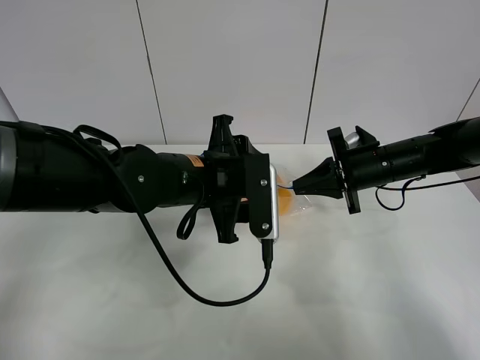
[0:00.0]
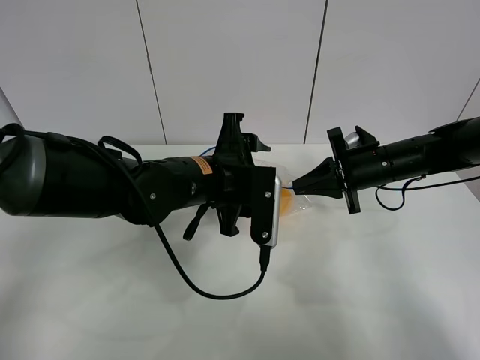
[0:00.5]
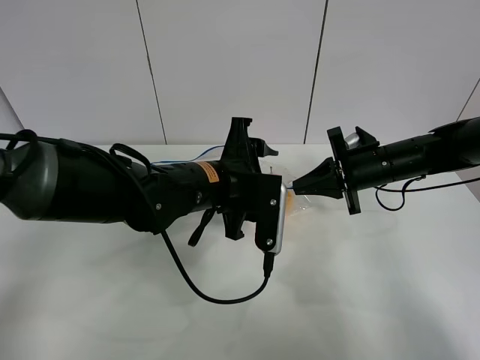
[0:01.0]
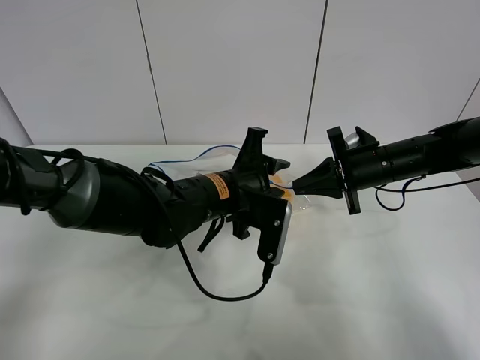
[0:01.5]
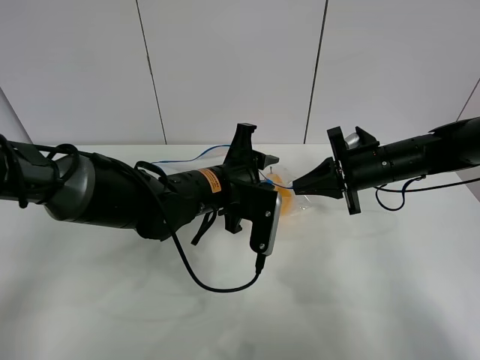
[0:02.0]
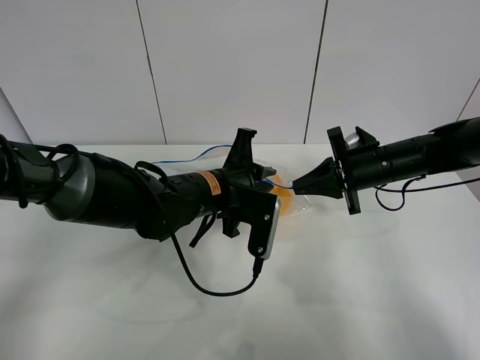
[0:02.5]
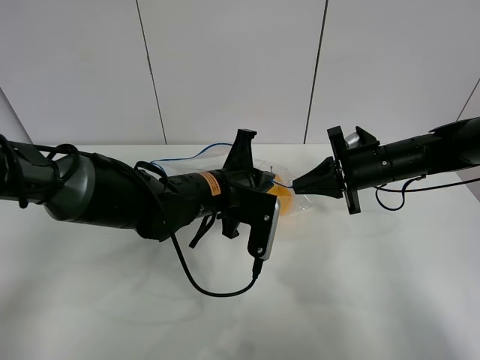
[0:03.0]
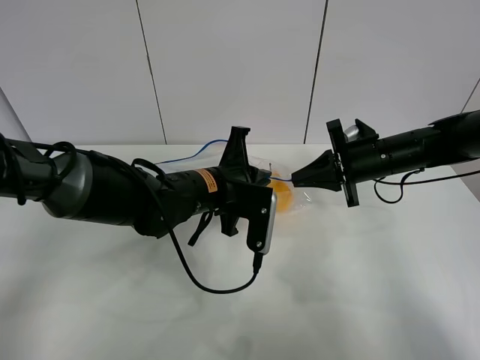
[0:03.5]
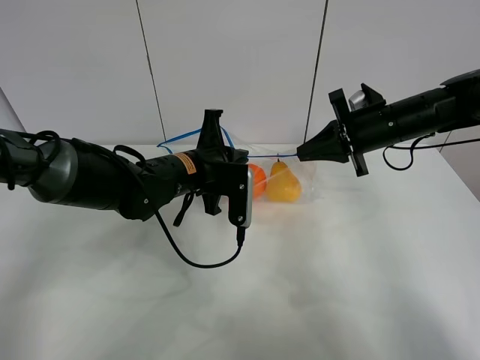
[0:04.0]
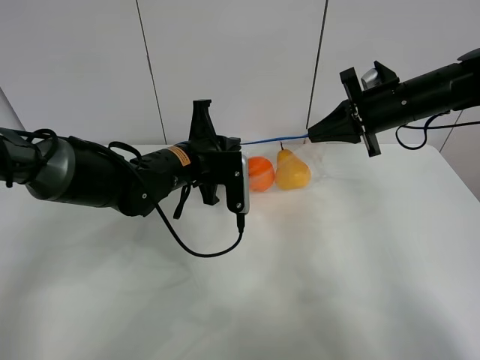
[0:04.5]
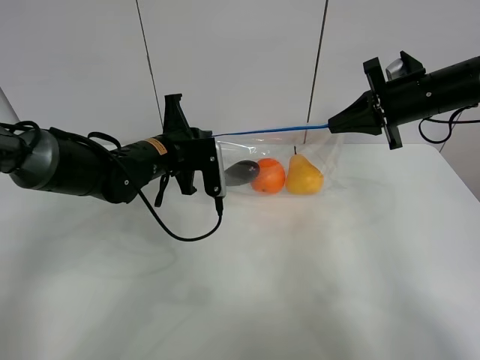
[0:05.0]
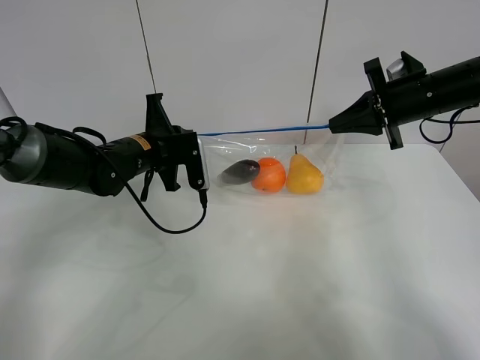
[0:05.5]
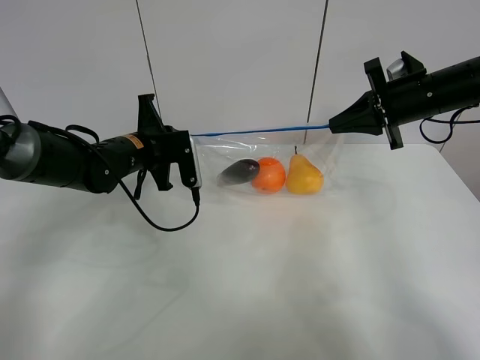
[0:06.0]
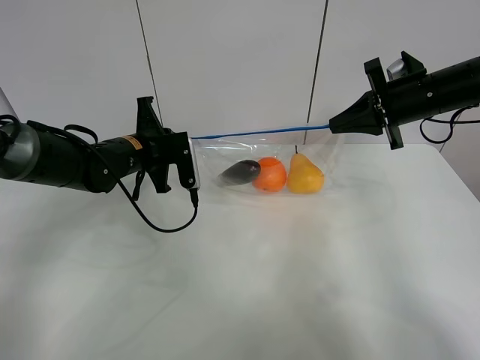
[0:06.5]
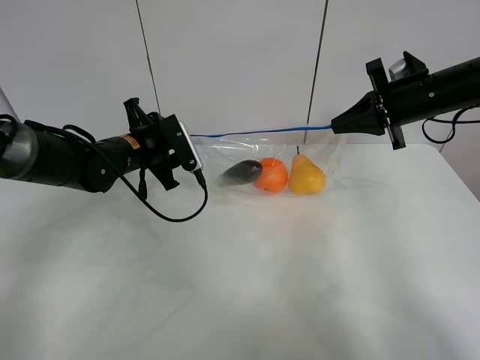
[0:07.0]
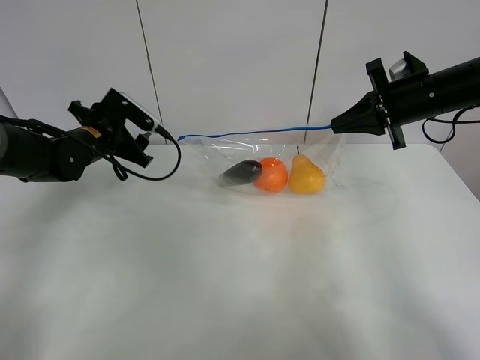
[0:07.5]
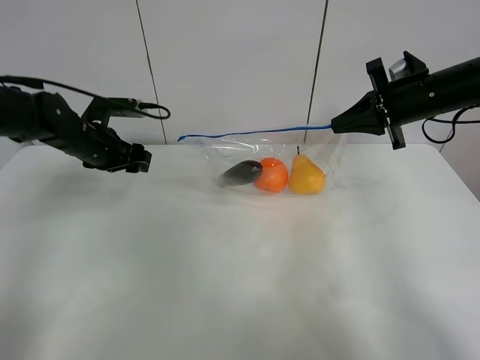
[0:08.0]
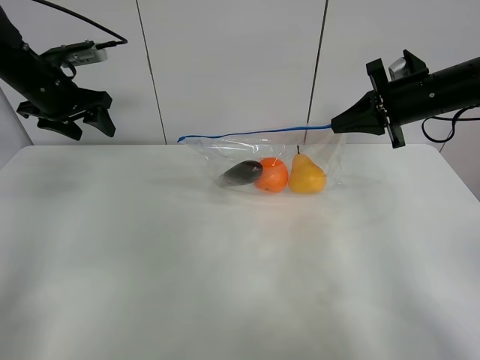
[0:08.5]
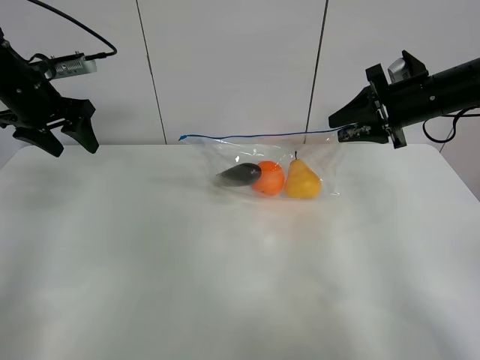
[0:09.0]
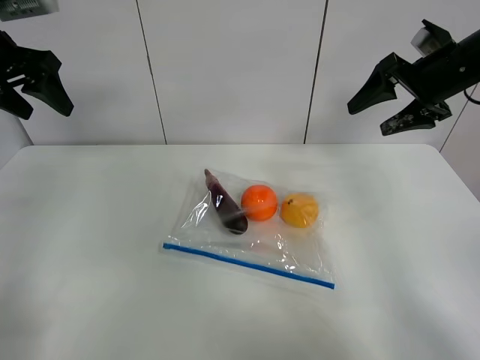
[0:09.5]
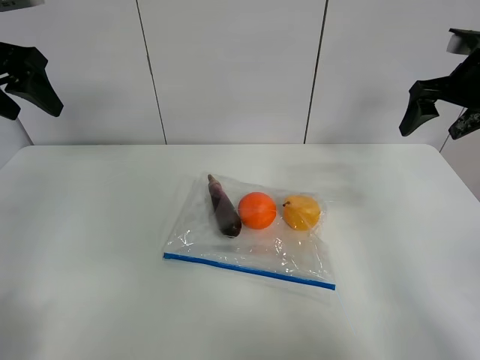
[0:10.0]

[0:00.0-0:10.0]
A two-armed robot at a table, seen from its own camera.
Step, 0:00.0 to 0:07.0: Pull the fruit bag with left gripper.
0:02.0 to 0:04.0: The right gripper is displaced upward by roughly 5 cm; the left gripper shifts by roughly 5 cm, and closes up.
0:04.0 to 0:06.0: The right gripper ends up about 5 cm from where it was, while the left gripper shifts about 10 cm to the left.
0:06.0 to 0:08.0: The left gripper shifts approximately 10 cm to the left, and opens its fingers.
0:08.0 to 0:10.0: The right gripper shifts approximately 10 cm upward and to the right, and opens up, while the left gripper goes some 20 cm upward and backward.

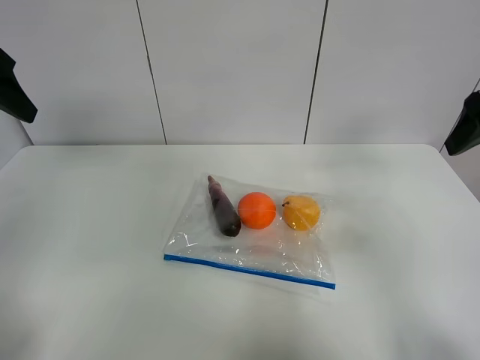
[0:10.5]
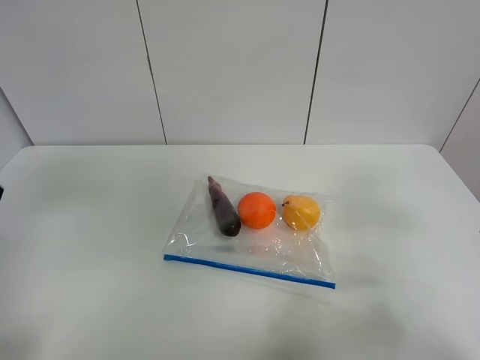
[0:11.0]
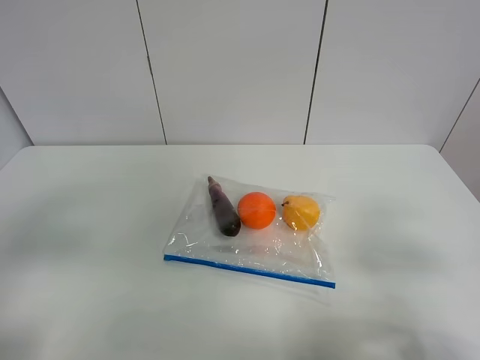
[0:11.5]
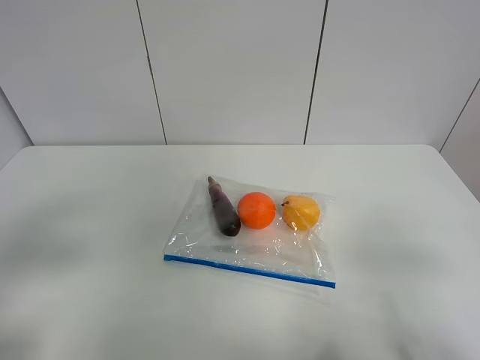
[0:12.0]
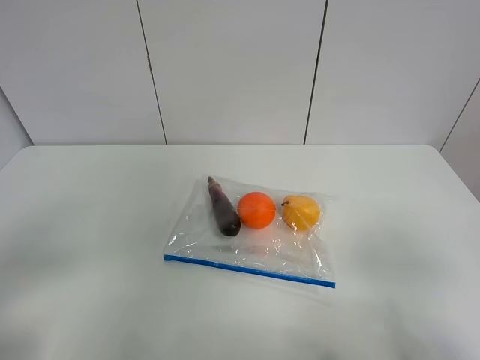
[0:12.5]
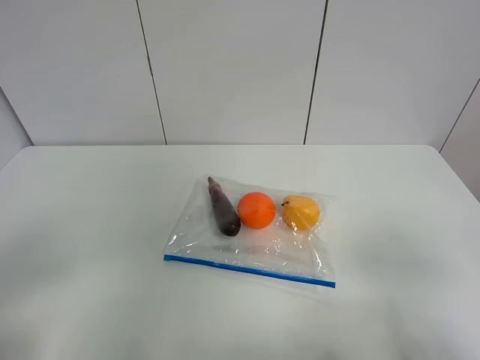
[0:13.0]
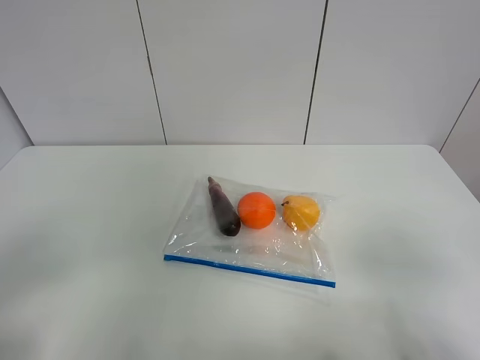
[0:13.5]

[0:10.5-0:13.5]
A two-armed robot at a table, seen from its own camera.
0:10.5 to 0:12.0: The right gripper is displaced backward by approximately 25 cm. The left gripper moves backward and downward, about 25 cm.

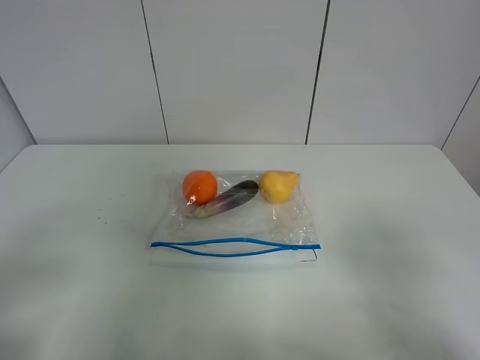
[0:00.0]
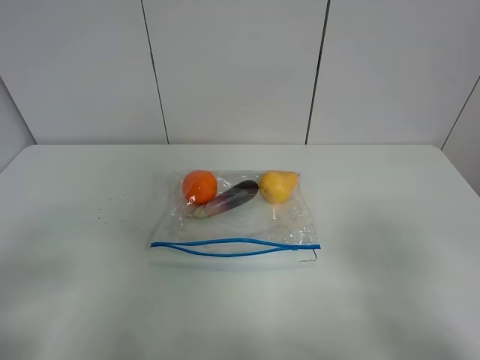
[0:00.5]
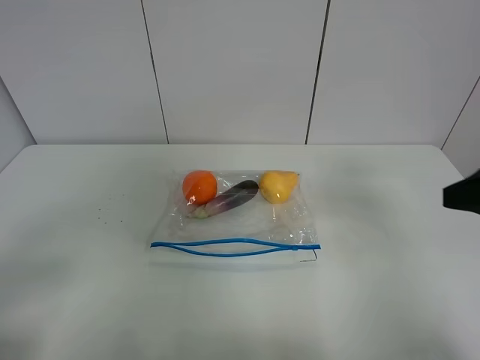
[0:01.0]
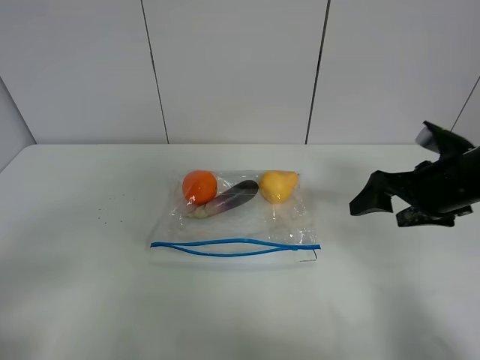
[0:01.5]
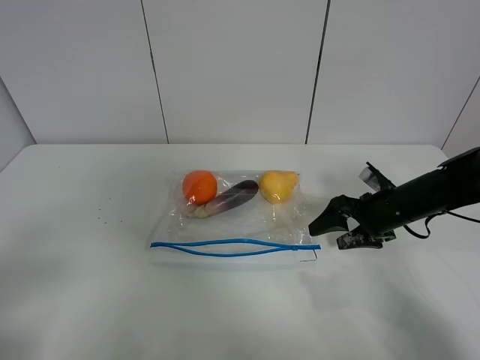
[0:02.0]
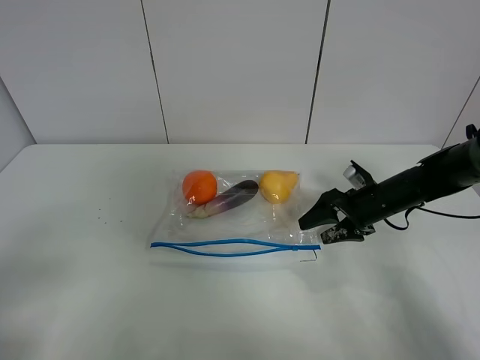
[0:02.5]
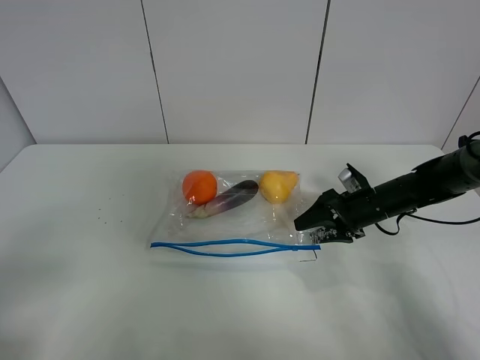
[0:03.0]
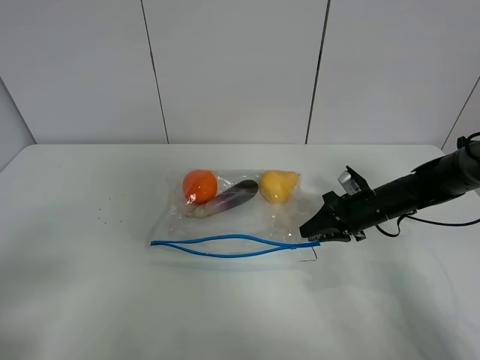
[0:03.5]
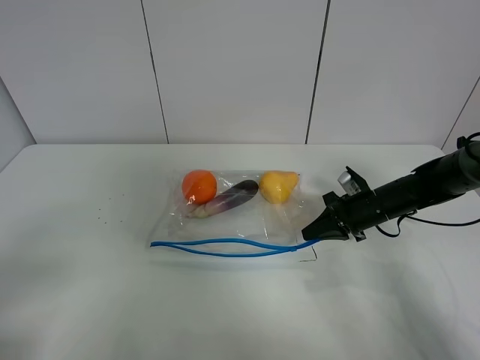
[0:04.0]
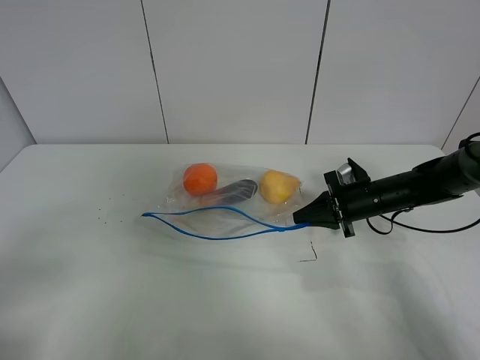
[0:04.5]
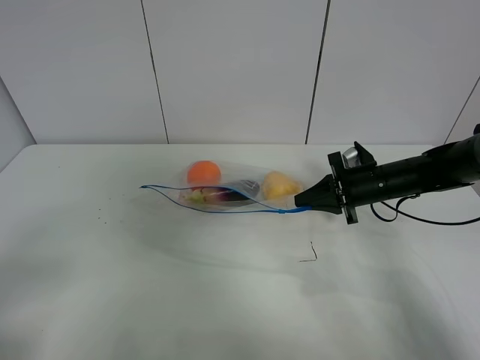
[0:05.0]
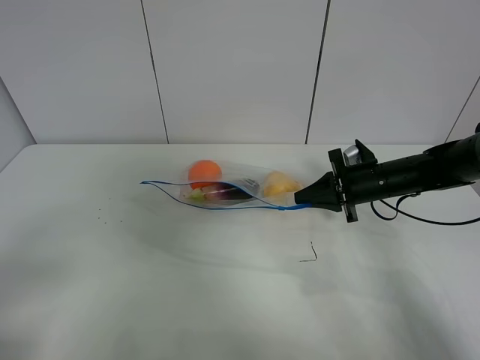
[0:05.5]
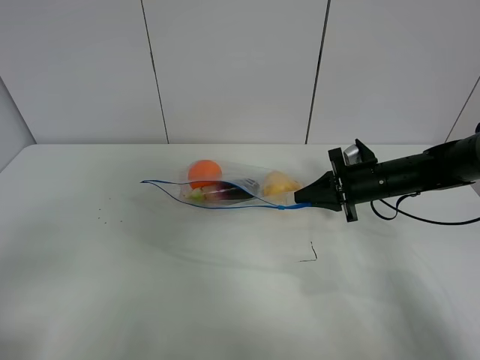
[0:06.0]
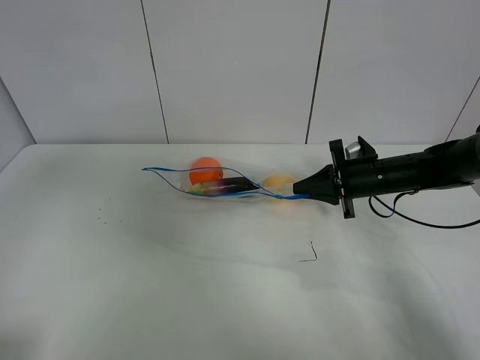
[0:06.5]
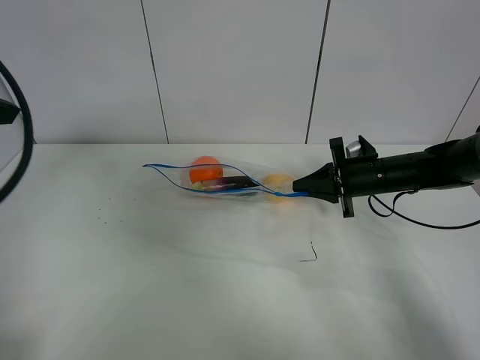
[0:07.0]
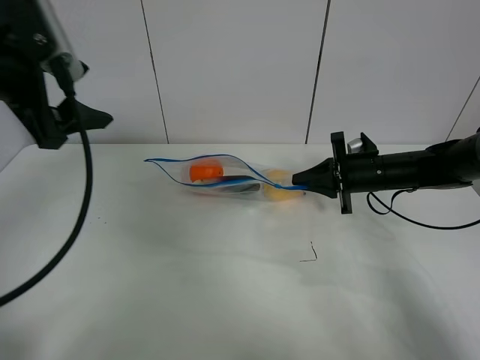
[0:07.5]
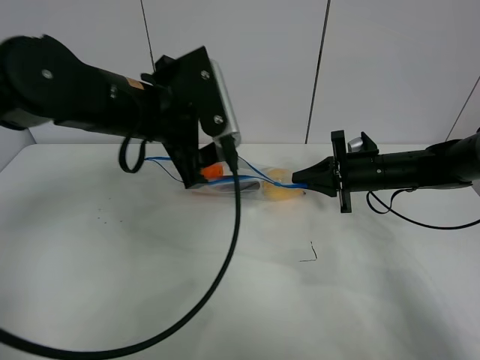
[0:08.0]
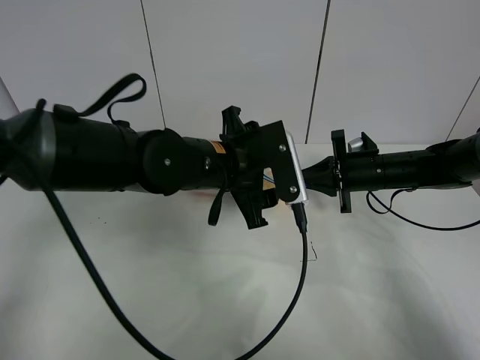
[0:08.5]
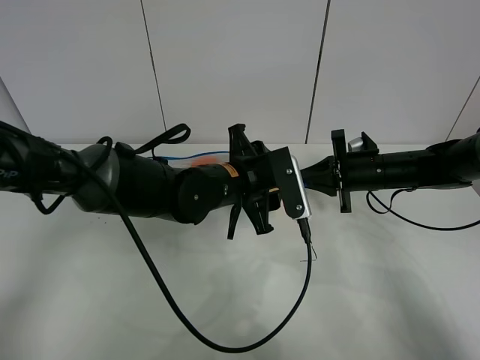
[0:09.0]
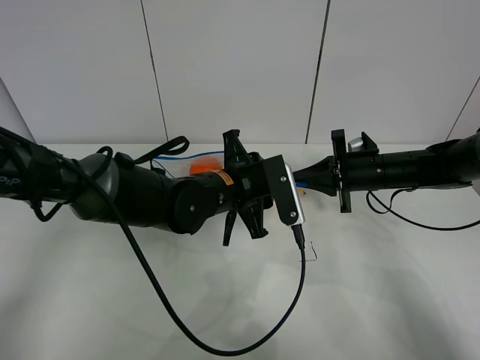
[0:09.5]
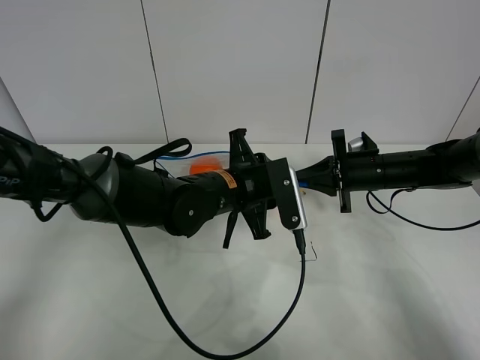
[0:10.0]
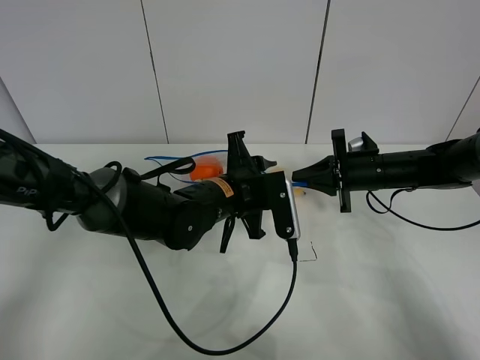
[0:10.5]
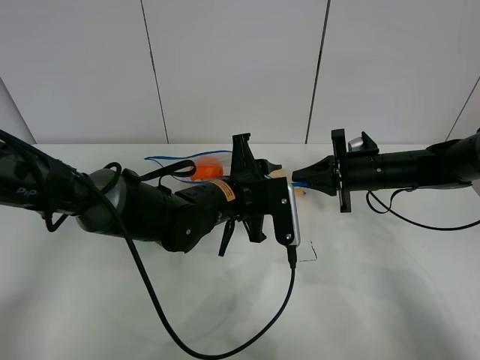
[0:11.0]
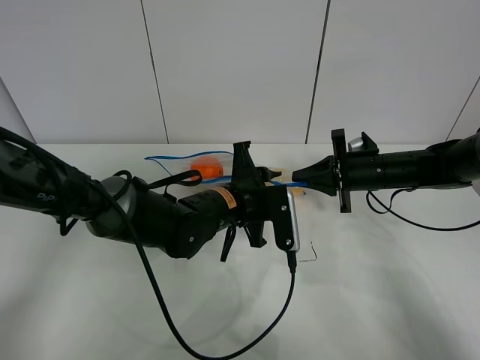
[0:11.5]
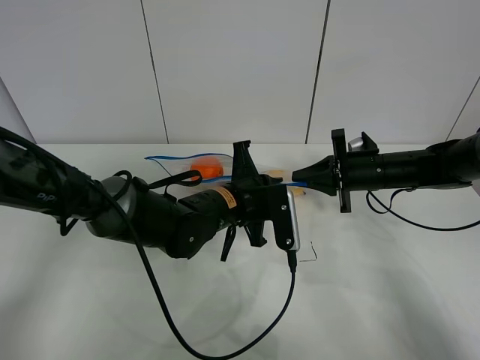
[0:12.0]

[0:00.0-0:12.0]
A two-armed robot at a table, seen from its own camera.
Step, 0:00.0 to 0:03.5: Grasp the fruit bag with right gripper.
0:00.0 to 0:02.0: The right gripper goes some 35 cm forward and downward.
0:02.0 to 0:04.0: The right gripper ends up some 5 cm from where it was, and closes its fingers.
0:04.0 to 0:06.0: The right gripper heads upward, covering roughly 5 cm.
0:06.0 to 0:08.0: The left gripper moves forward and to the right, roughly 35 cm.
0:08.0 to 0:10.0: The left gripper moves downward and to the right, approximately 15 cm, and closes its fingers.
0:10.0 to 0:12.0: The left gripper closes up.
